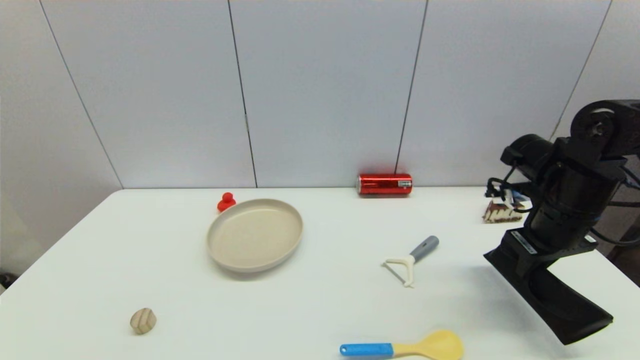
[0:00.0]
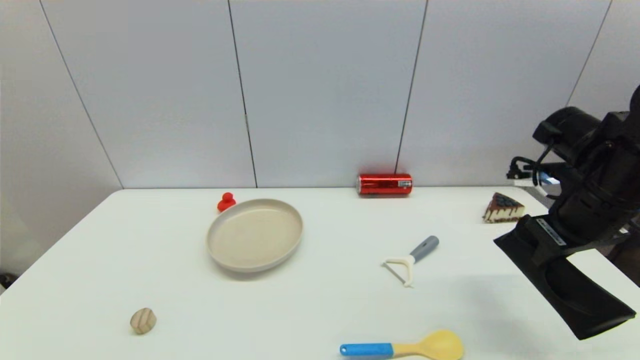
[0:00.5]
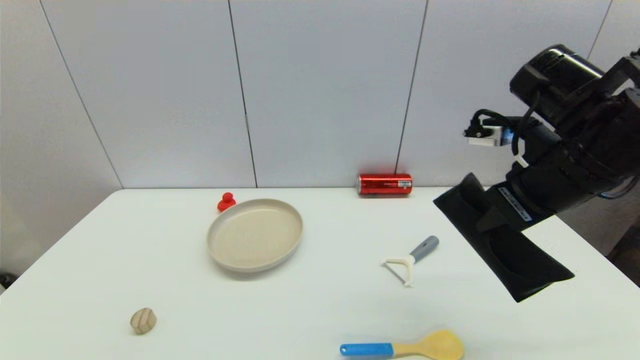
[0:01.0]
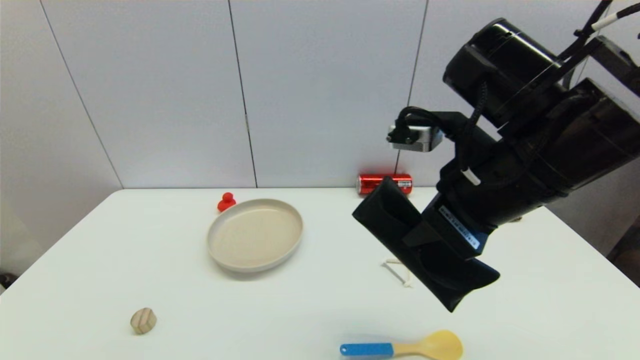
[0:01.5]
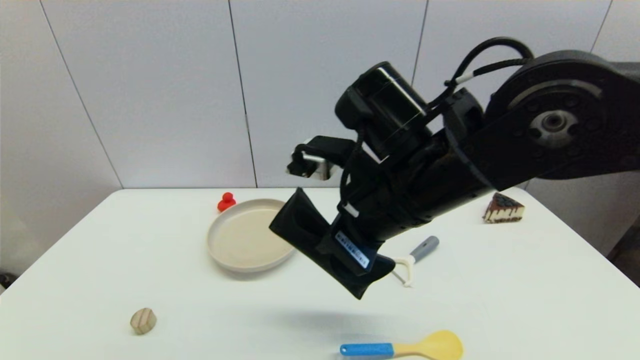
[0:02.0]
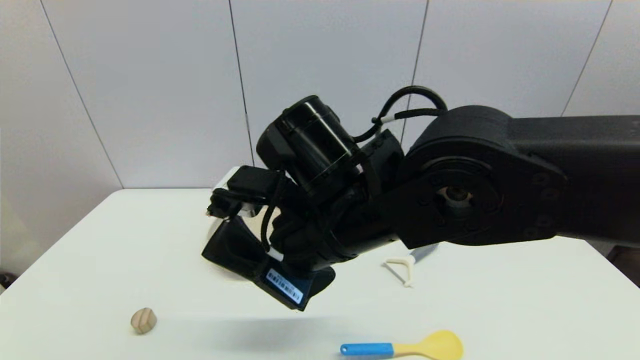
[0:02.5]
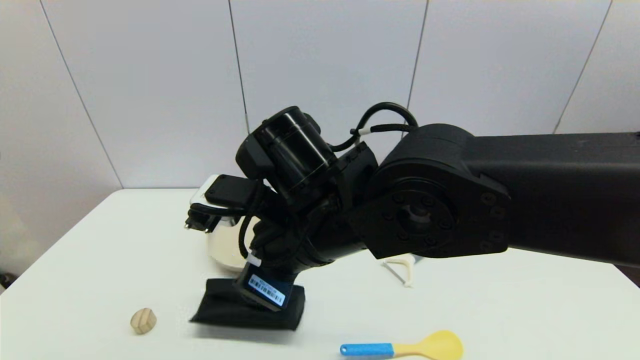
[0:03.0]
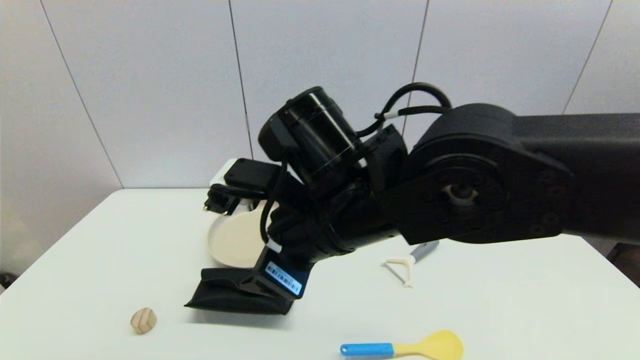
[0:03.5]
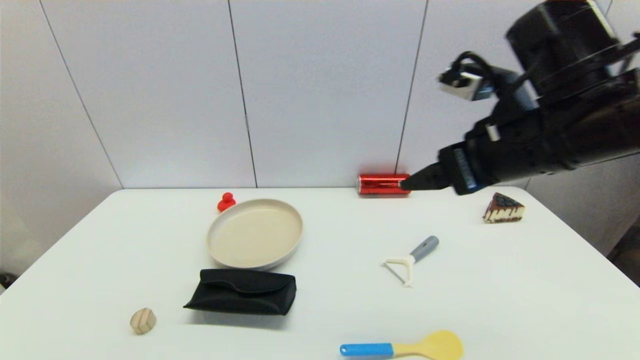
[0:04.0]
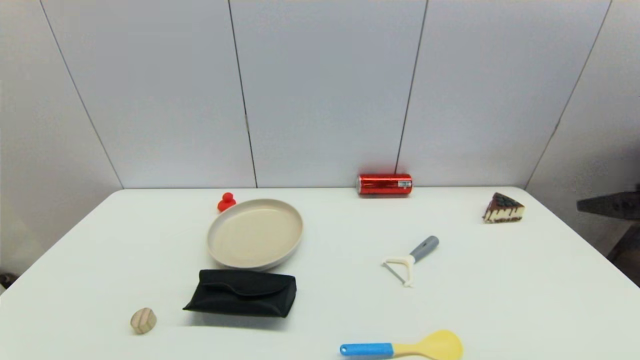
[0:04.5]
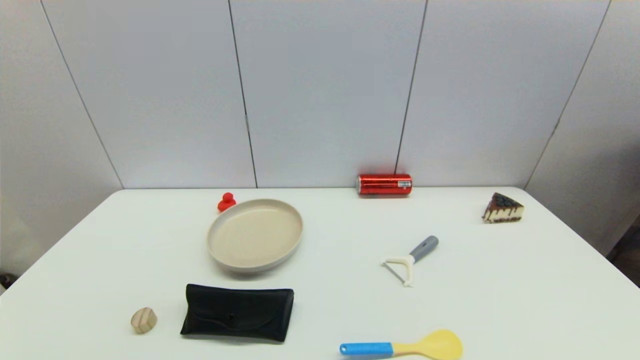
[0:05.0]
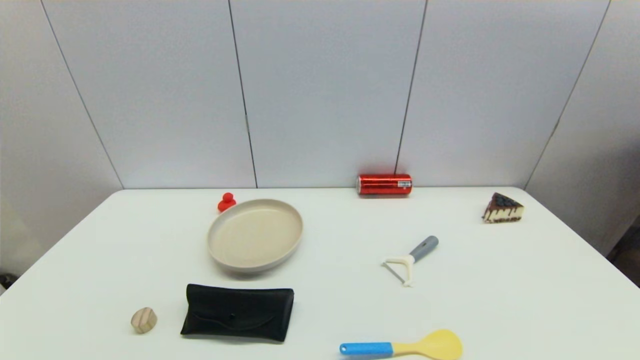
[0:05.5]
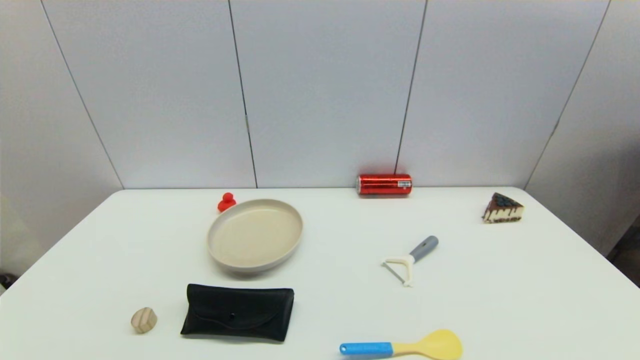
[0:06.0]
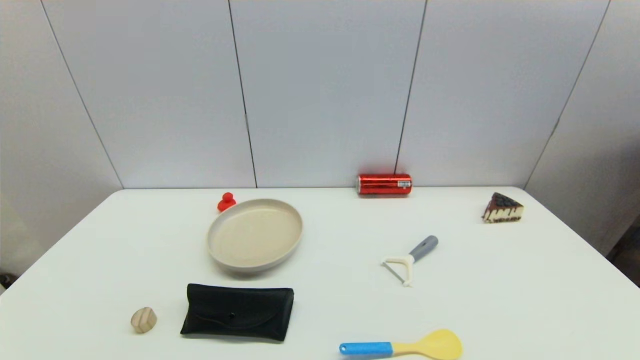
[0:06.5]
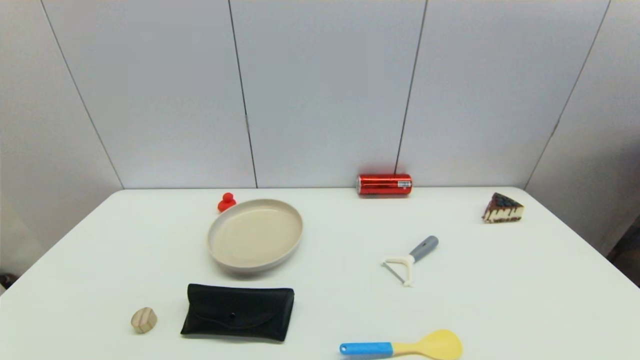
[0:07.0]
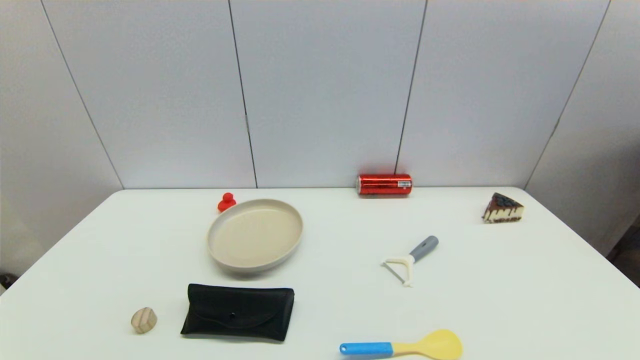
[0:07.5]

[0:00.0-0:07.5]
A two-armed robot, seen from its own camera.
Step, 0:00.0 to 0:03.0: Place the glasses case on the table with right gripper.
0:00.0 to 0:02.0: The right gripper goes some 25 cm to the left.
0:02.0 to 0:04.0: The right gripper heads to the right, covering about 15 cm, and opens.
0:04.0 to 0:05.5: The right gripper goes about 35 cm backward, downward and to the right.
